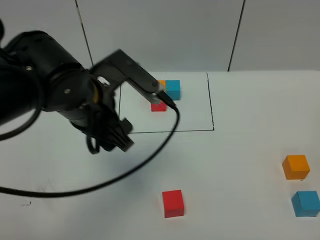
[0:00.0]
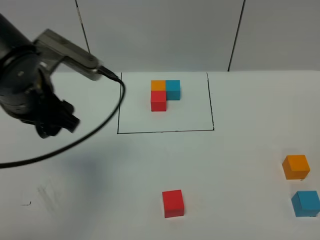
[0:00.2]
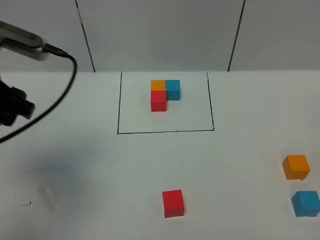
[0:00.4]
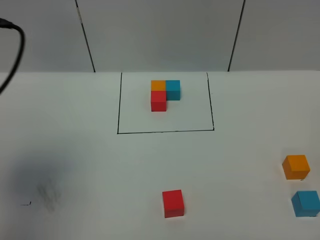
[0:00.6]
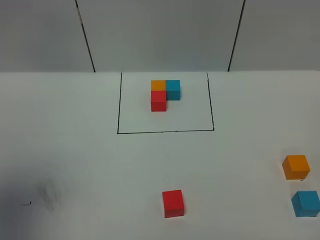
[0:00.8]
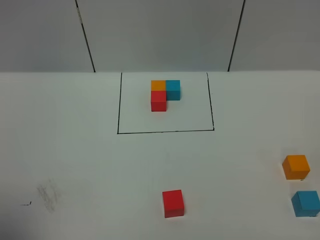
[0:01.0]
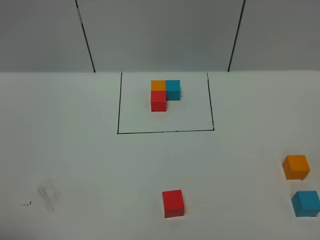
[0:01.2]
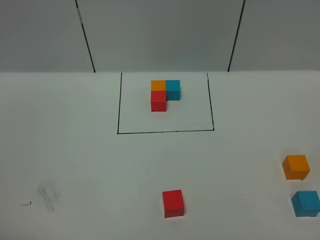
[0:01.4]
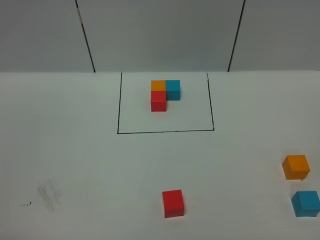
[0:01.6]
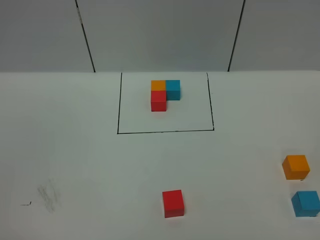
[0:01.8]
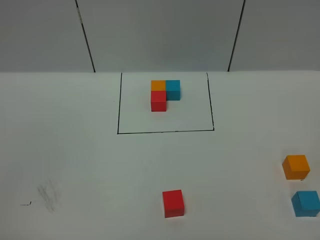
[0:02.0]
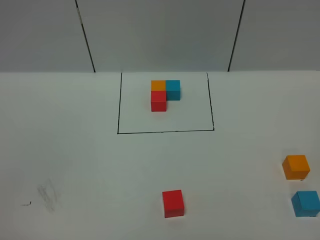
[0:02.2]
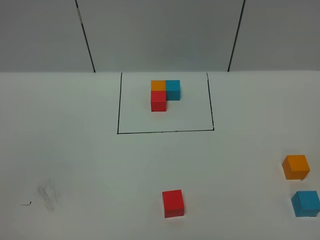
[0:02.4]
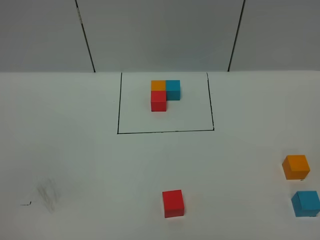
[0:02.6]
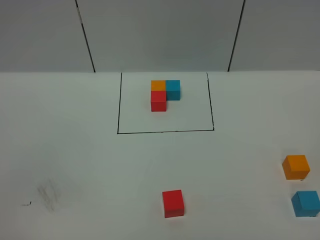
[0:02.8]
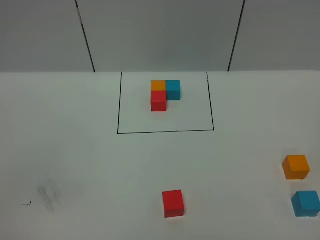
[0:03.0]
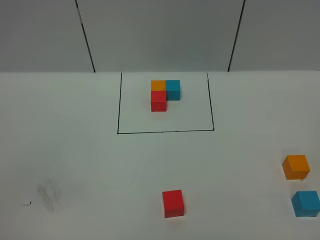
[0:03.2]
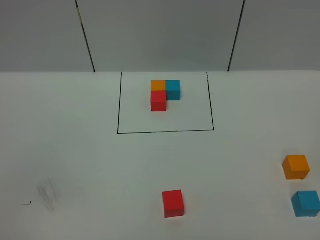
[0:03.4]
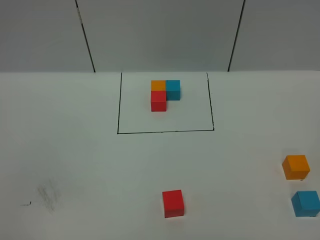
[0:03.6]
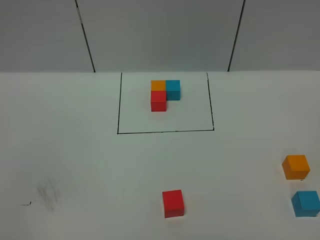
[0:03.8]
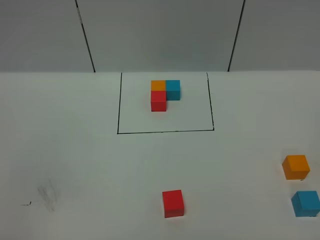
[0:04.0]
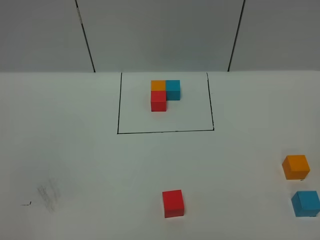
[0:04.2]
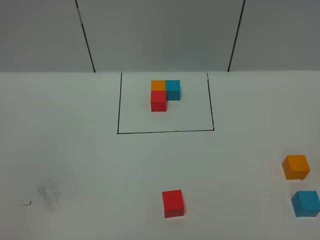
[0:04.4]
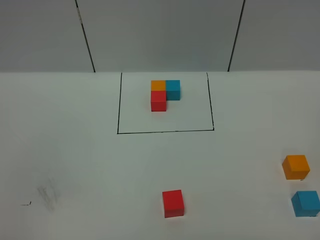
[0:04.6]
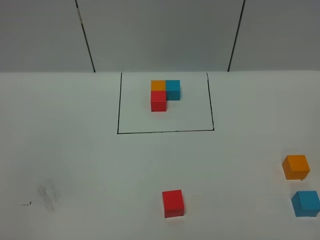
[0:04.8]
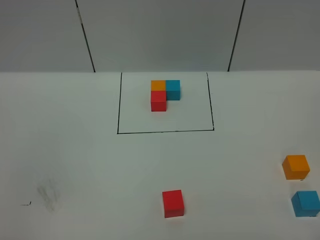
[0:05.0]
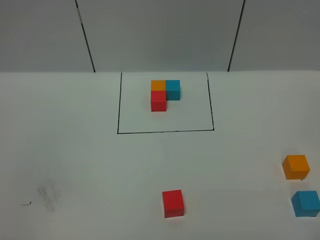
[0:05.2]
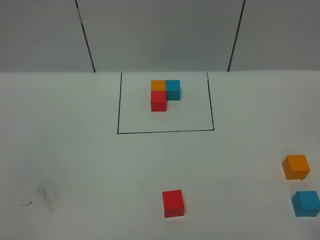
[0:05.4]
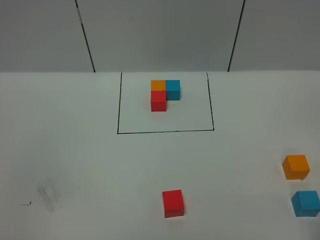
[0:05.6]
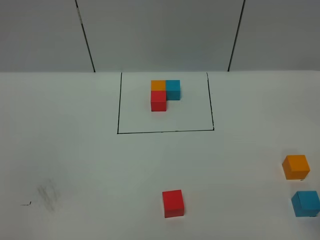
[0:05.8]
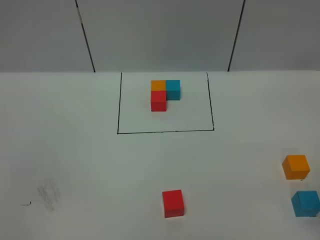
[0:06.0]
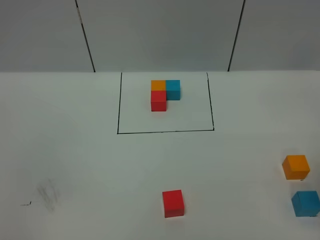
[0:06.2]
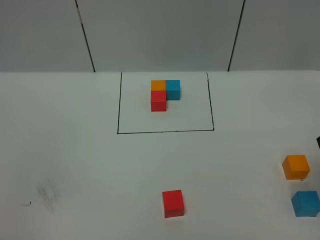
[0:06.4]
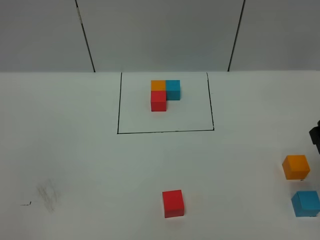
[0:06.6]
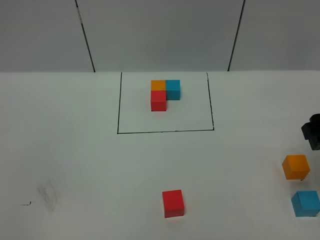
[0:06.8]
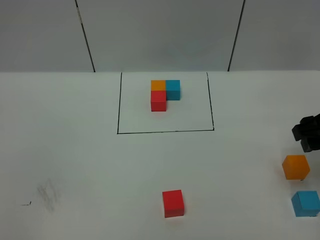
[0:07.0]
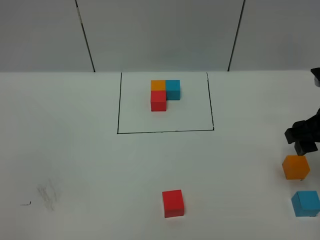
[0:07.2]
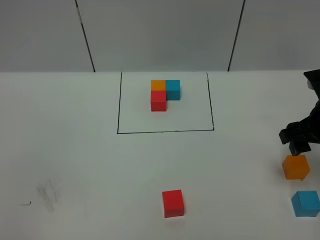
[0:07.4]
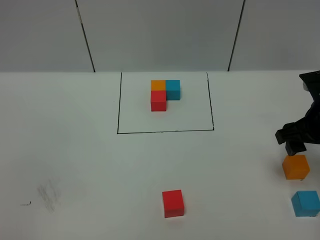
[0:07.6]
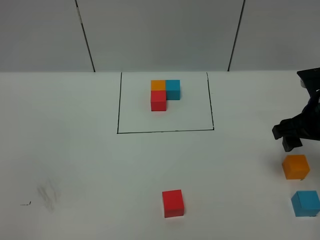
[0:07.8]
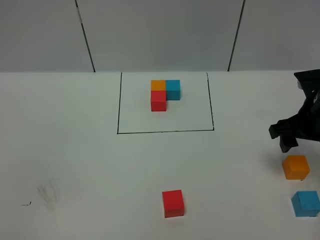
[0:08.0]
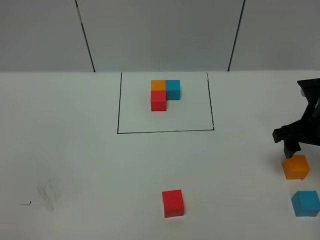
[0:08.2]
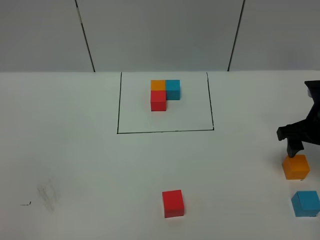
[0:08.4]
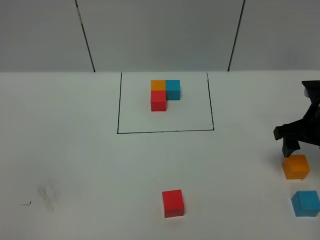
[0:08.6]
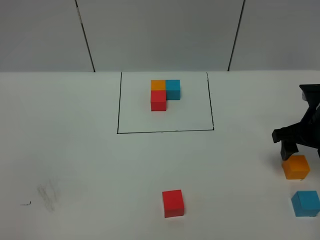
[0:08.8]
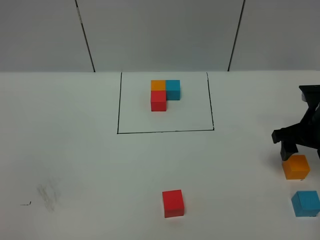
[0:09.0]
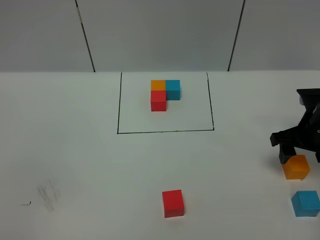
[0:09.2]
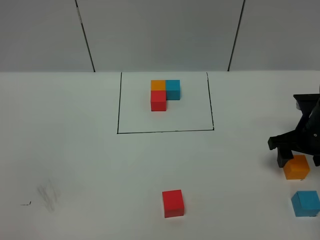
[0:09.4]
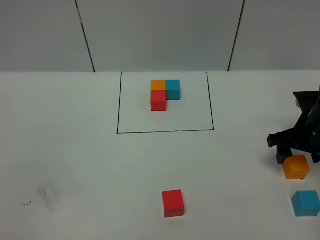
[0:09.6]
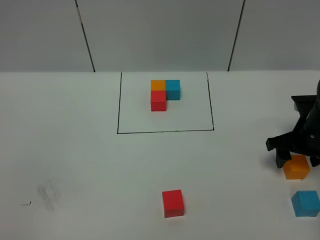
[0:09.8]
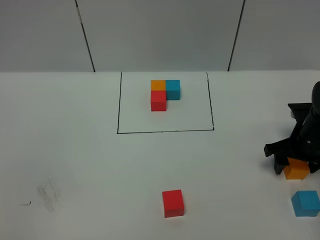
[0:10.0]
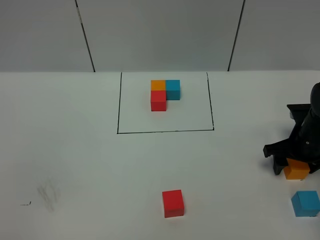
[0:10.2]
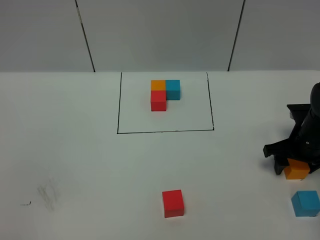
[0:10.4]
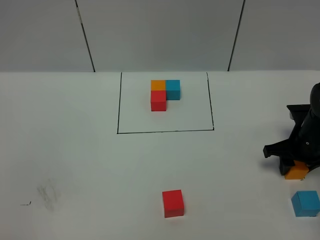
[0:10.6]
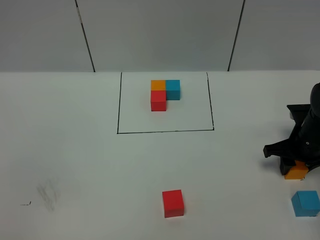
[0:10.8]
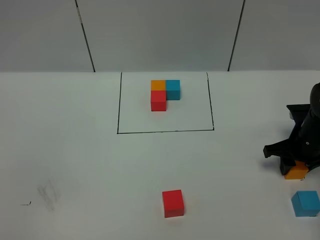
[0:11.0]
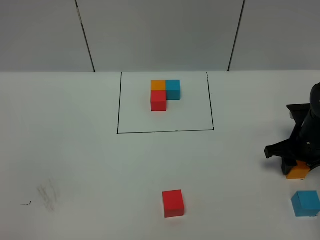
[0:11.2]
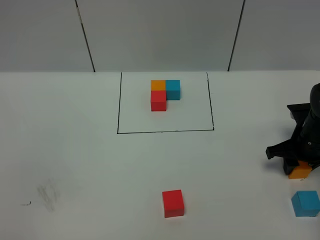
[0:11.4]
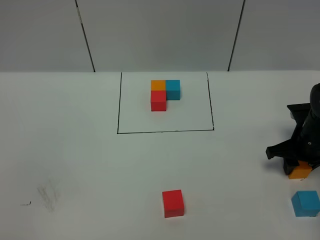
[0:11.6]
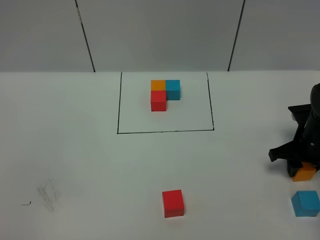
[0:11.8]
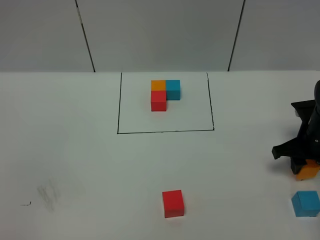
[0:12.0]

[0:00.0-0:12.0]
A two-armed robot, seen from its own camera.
Task of the whole recording: According to the building block template in front, assemble the scattered blocks together.
0:00.0 to 0:01.6: The left gripper heads backward and to the left, covering about 35 cm.
0:06.0 to 0:07.6: The right gripper is displaced forward and downward by some 15 cm.
0:07.6 to 0:09.0: The right gripper travels downward by about 5 cm.
0:09.0 to 0:10.4: The right gripper shifts approximately 5 cm downward.
0:10.4 to 0:12.0: The right gripper closes up.

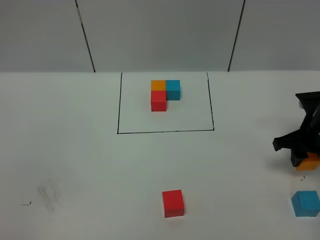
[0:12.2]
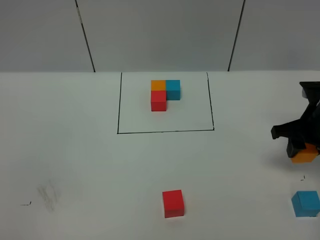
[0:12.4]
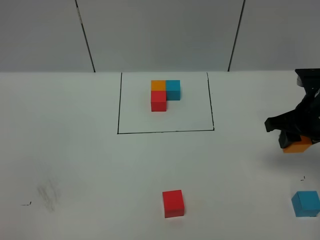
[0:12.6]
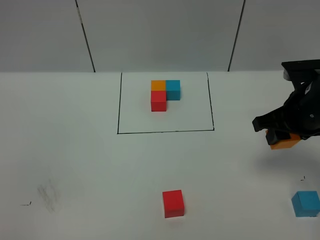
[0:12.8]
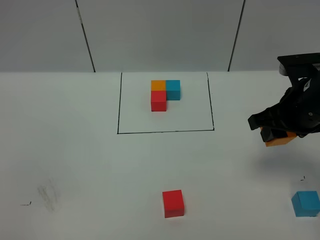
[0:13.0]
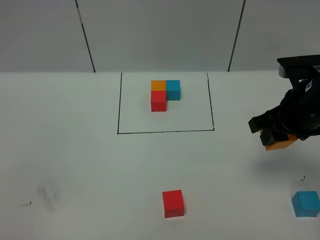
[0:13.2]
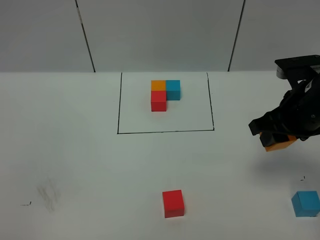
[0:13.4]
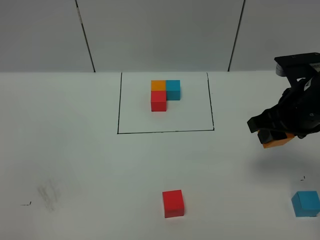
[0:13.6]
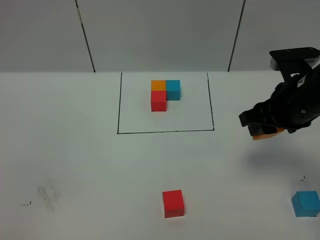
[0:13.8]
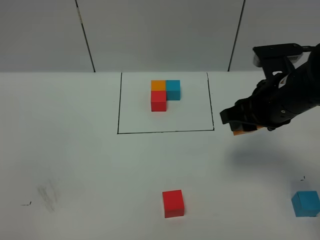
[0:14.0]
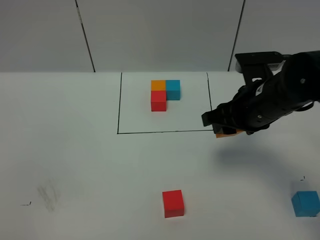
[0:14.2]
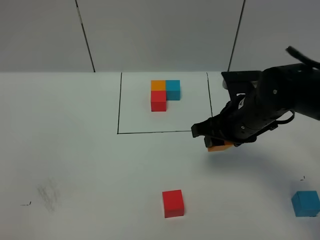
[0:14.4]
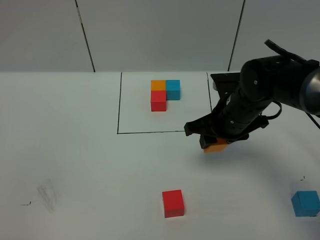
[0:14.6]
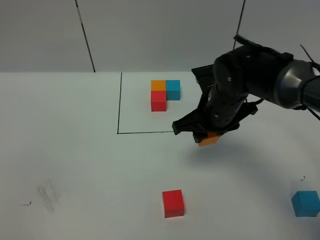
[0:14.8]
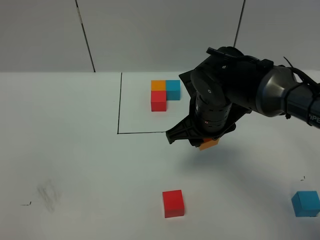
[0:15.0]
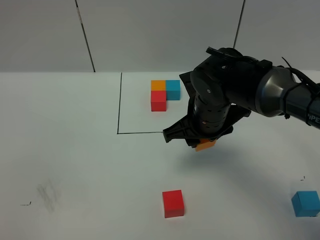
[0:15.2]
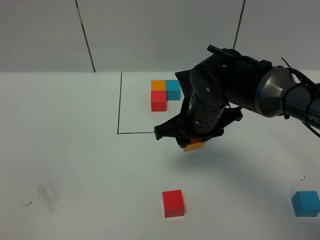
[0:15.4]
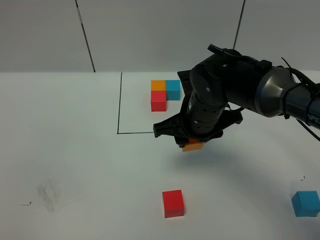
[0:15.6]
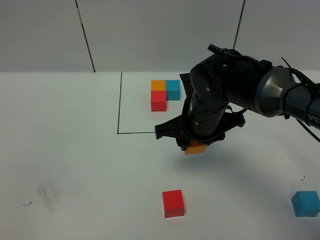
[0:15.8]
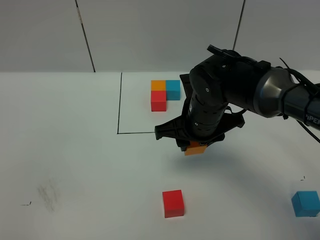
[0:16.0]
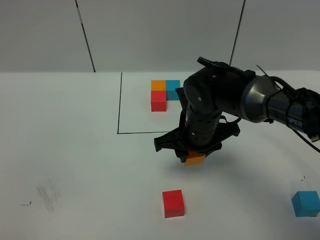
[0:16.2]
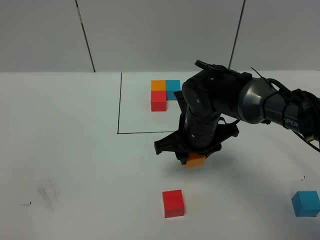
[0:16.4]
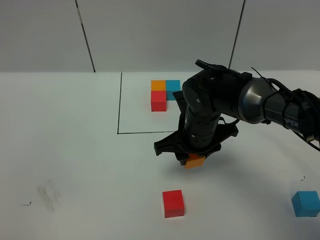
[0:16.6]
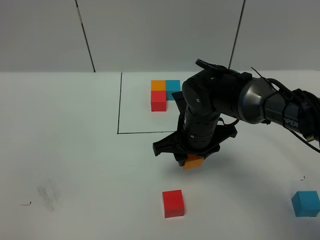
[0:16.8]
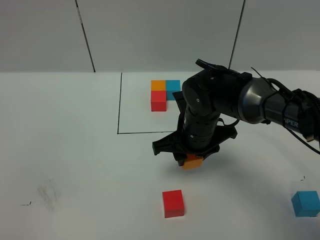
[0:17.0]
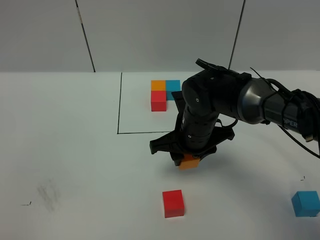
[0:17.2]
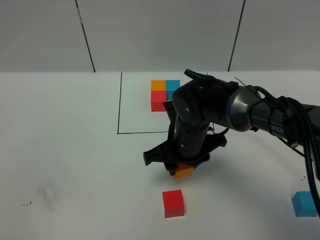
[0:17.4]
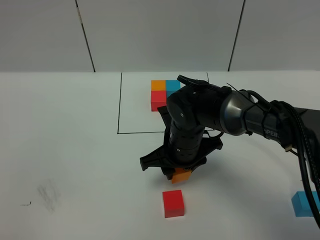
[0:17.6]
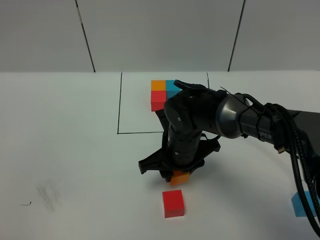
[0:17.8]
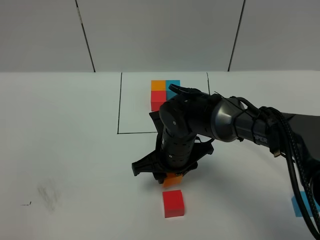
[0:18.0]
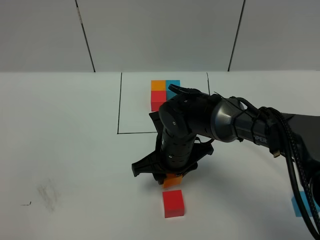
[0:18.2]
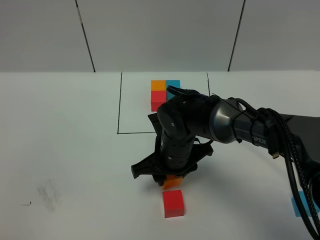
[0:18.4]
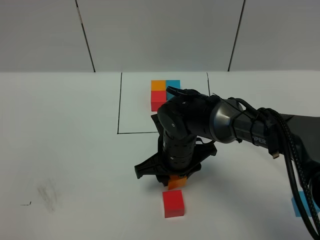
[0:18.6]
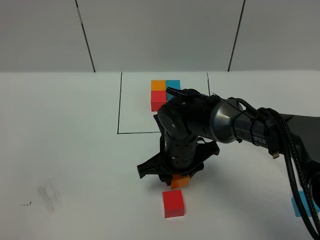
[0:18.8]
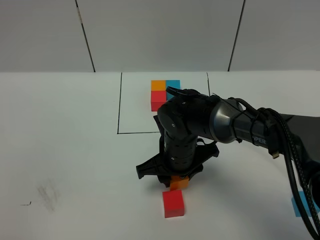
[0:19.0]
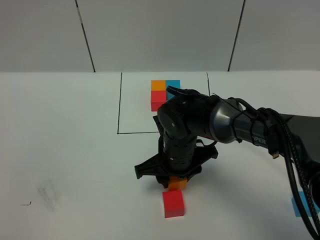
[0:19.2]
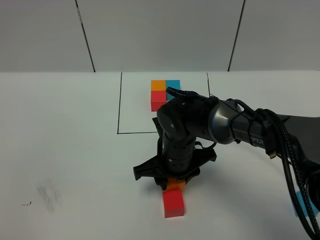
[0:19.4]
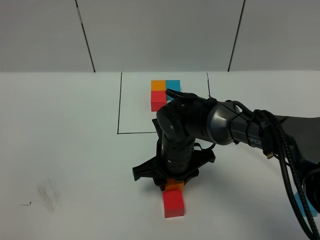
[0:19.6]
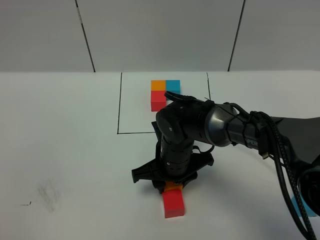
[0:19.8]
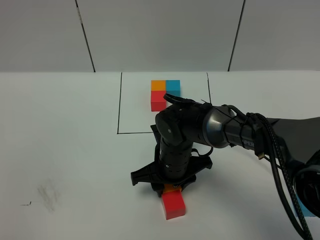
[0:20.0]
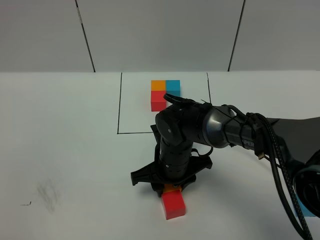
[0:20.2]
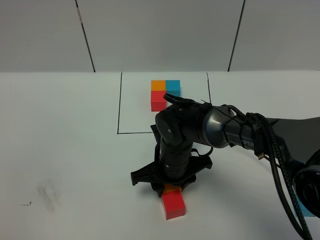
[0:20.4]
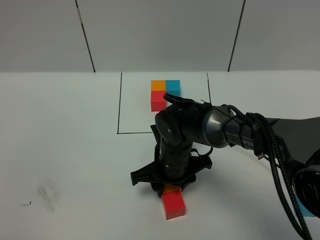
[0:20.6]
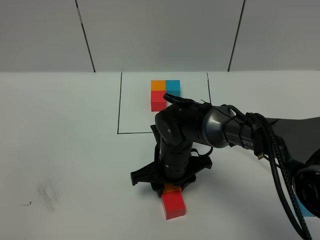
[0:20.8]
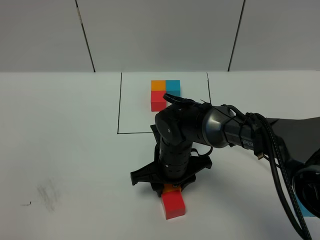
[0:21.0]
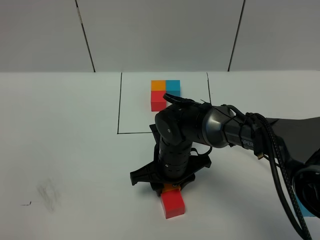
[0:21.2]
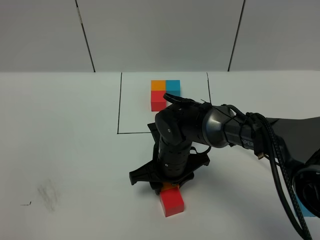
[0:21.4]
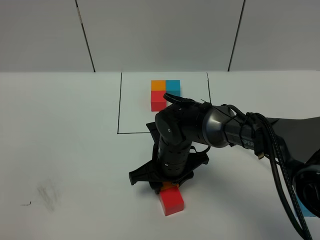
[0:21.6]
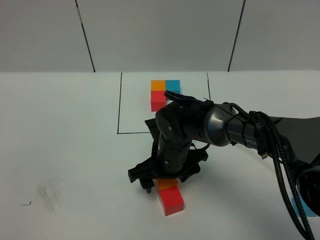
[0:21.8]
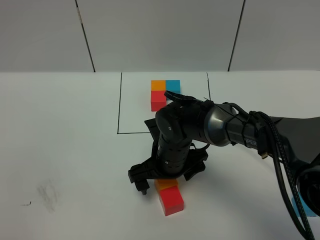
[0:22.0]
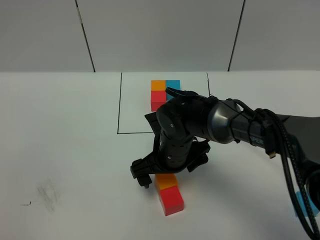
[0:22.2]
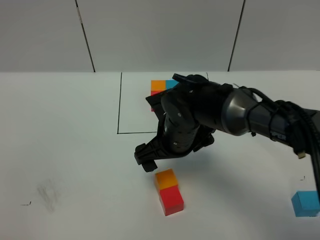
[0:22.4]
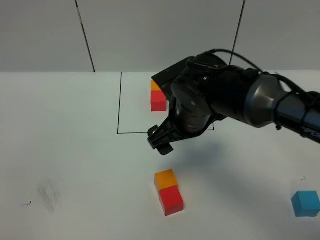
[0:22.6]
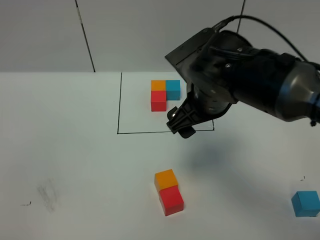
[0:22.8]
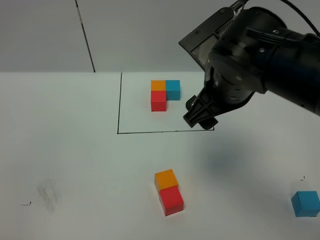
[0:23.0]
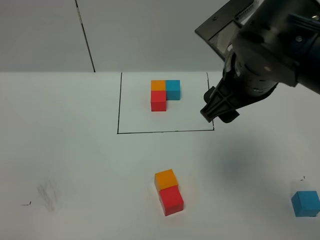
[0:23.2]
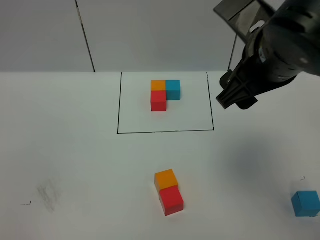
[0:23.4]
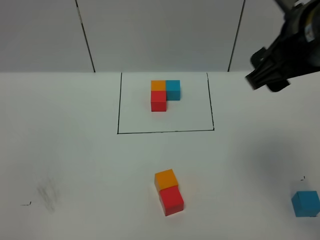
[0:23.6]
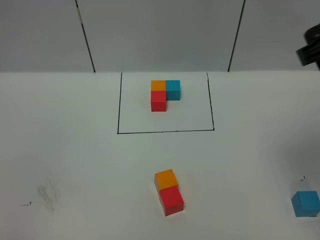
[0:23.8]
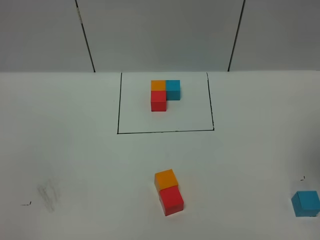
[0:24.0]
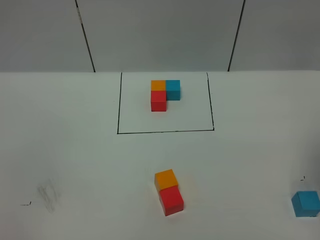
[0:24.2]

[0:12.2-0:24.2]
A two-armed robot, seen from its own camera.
Task of the whole recording: According to the building block template in front, assemble the scattered blocks together.
Step, 0:12.2 to 0:22.2: Put the orange cube on the behind of the red cube.
0:12.2 to 0:13.8: The right gripper is displaced upward and to the left by roughly 15 cm.
0:13.8 to 0:15.2: The right gripper shifts roughly 15 cm to the left and downward.
0:15.2 to 0:16.6: The grippers move only a little.
0:16.6 to 0:18.2: The right gripper ends up some 5 cm from where it was.
0:18.2 to 0:19.8: The grippers make only small movements.
0:19.8 to 0:21.2: Neither gripper changes place.
0:21.2 to 0:22.6: The right gripper goes roughly 10 cm upward, and opens up.
0:22.6 to 0:24.2: The right gripper is displaced to the right and upward by about 25 cm.
